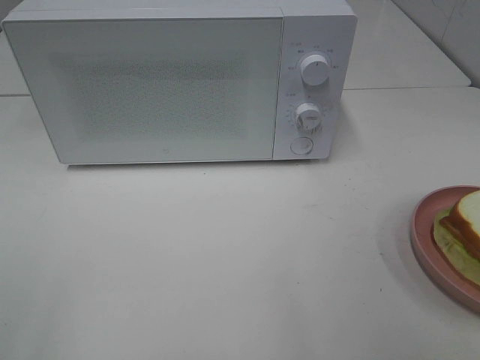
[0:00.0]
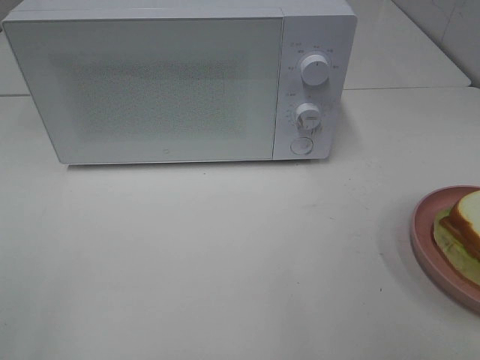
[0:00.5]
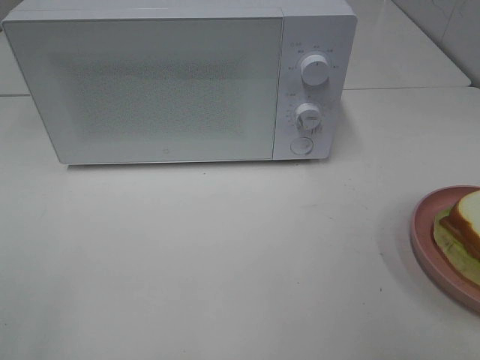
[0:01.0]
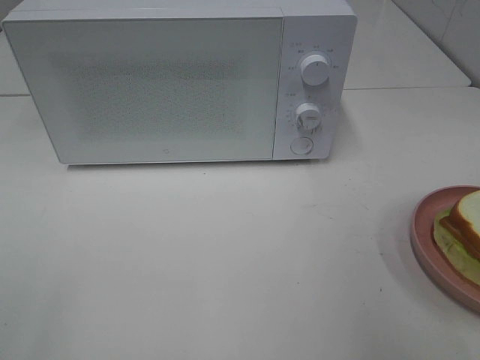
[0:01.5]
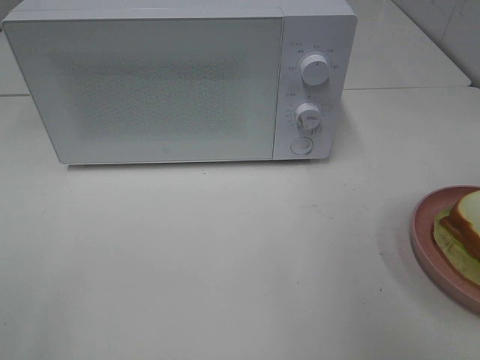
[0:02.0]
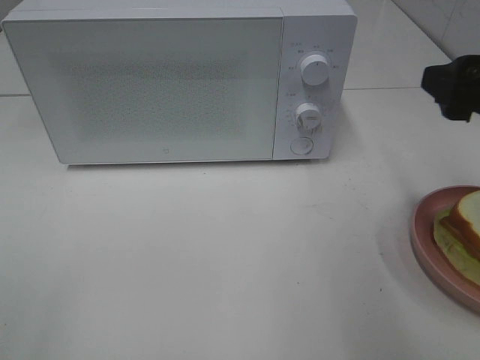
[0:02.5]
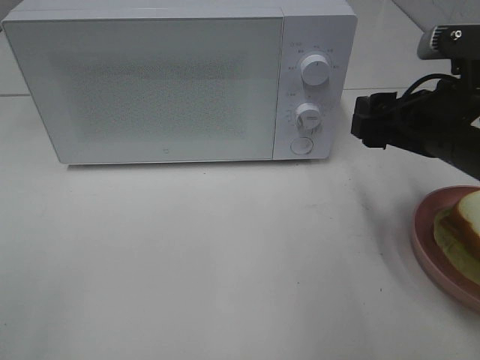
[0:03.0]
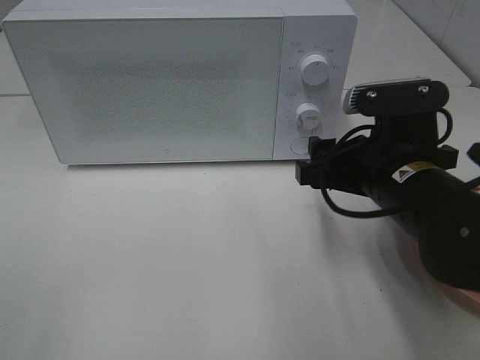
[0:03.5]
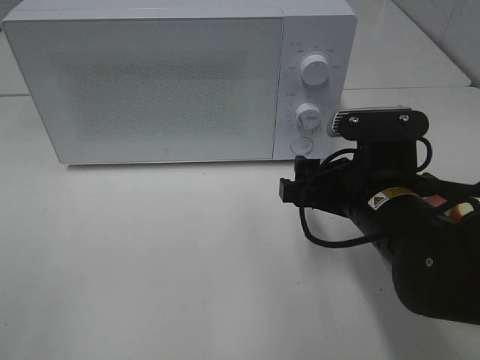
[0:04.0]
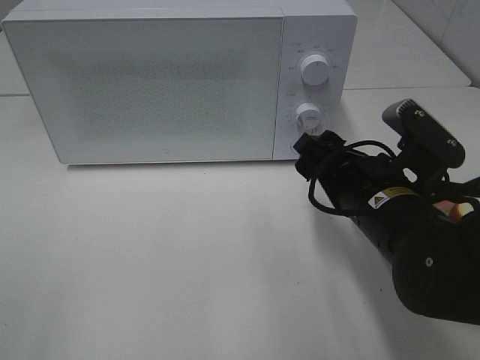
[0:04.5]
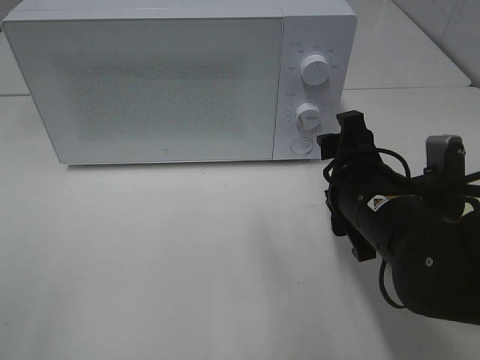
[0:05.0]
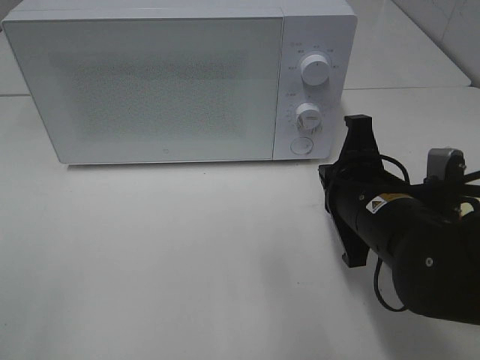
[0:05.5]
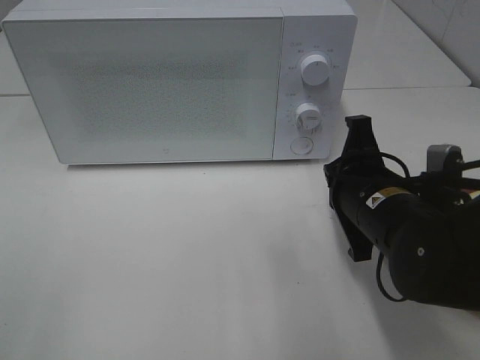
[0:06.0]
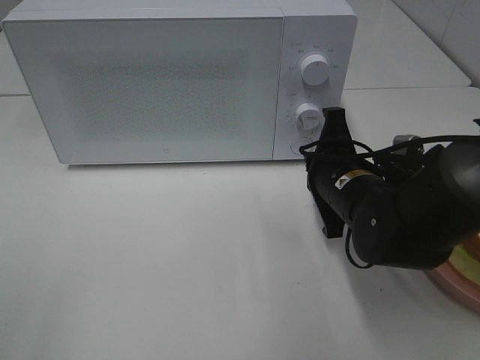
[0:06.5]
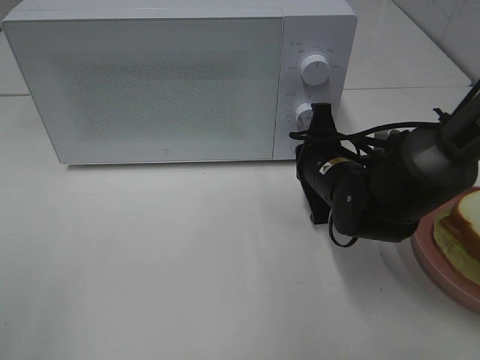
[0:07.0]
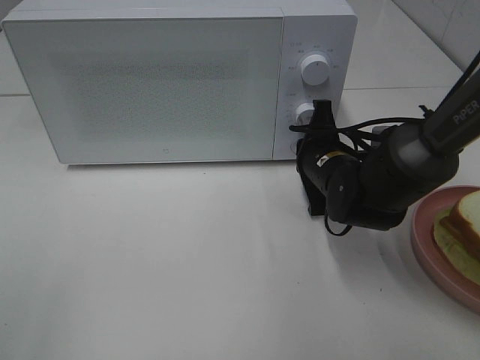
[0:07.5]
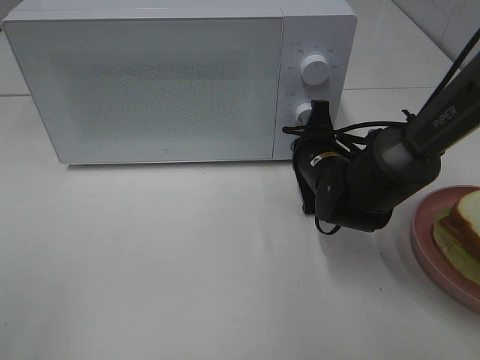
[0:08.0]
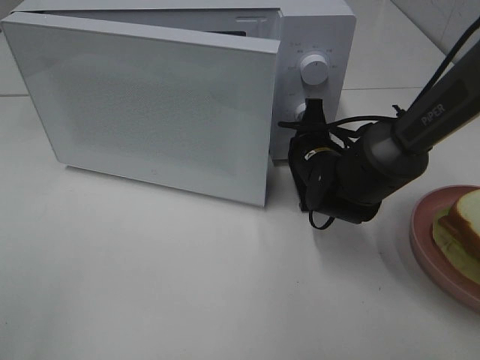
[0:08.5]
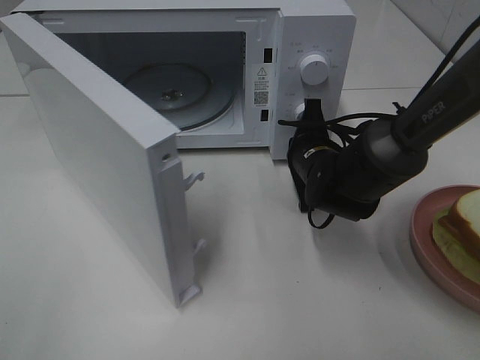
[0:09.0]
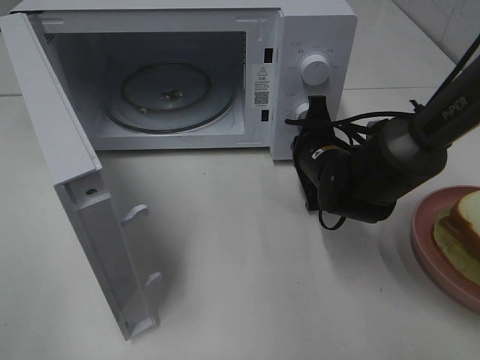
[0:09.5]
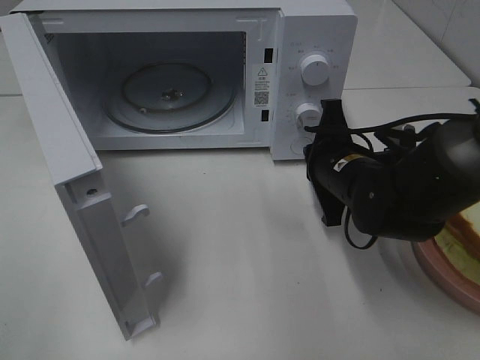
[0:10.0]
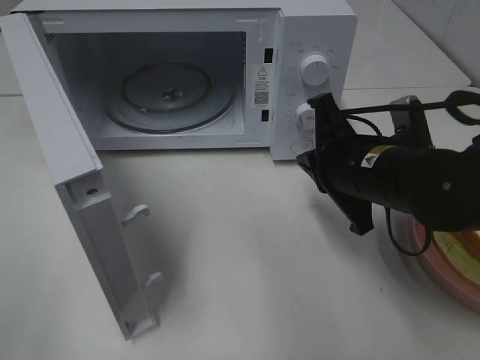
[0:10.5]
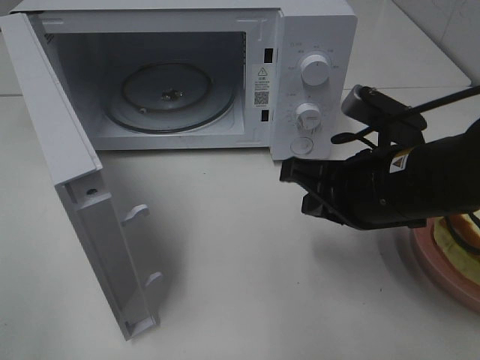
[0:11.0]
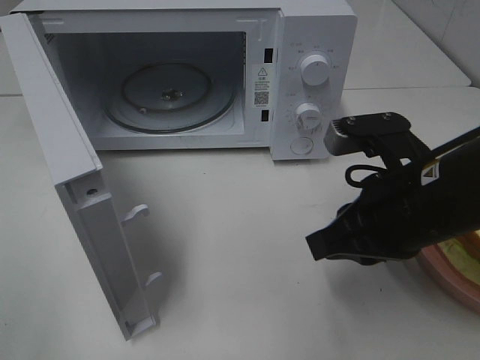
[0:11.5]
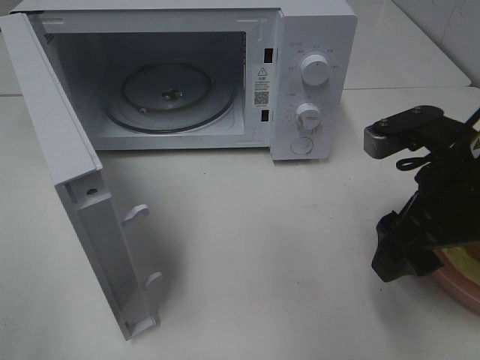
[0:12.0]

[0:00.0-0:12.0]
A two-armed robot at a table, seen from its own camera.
Task of the whole recording: Heat Sandwich.
Step, 0:00.0 to 0:09.5: Right hand: press the switch.
0:02.0 to 0:04.0: The right gripper shifts some 20 cm downward and to the left.
0:04.0 to 0:06.0: The right gripper closes up.
0:06.0 to 0:08.0: The right gripper is displaced forward and downward by approximately 10 cm.
0:08.0 to 0:10.0: The right gripper ends up about 5 cm from where it was.
0:10.0 to 0:12.0: The right gripper moves upward, backward and to the right, some 15 cm, and opens.

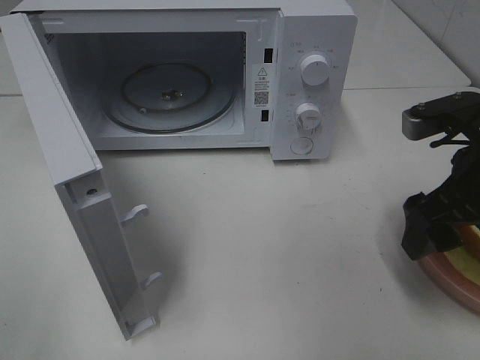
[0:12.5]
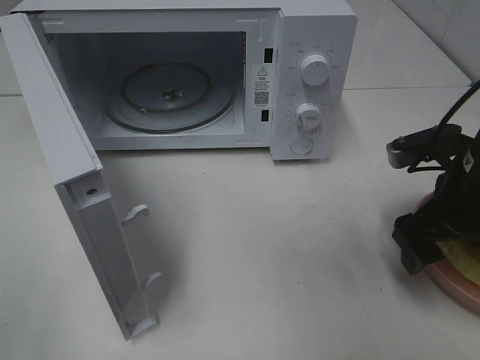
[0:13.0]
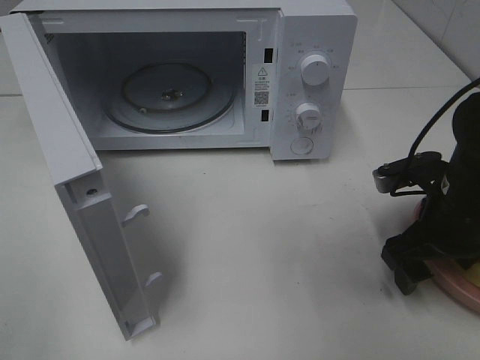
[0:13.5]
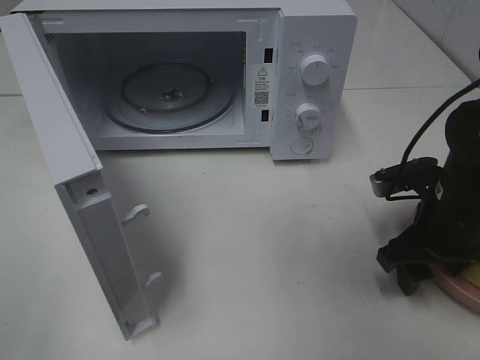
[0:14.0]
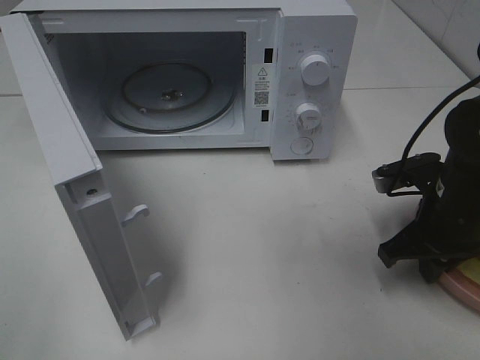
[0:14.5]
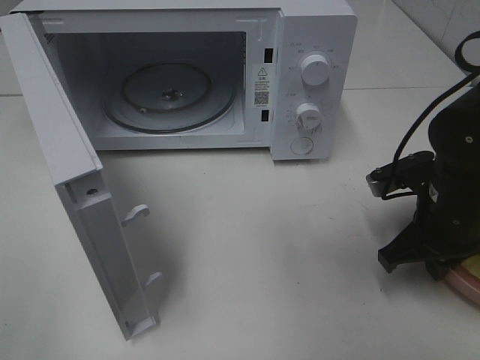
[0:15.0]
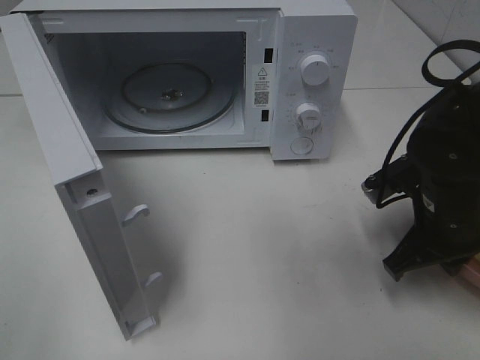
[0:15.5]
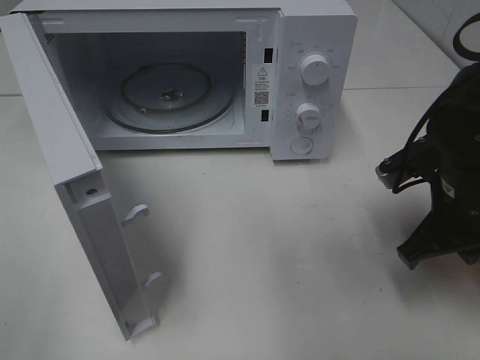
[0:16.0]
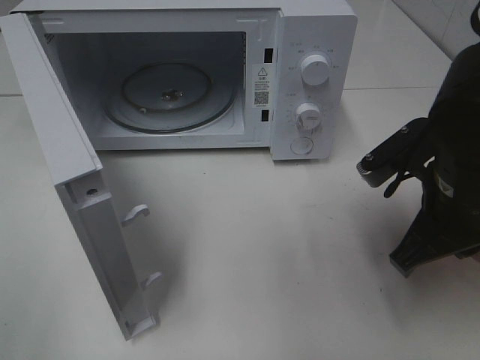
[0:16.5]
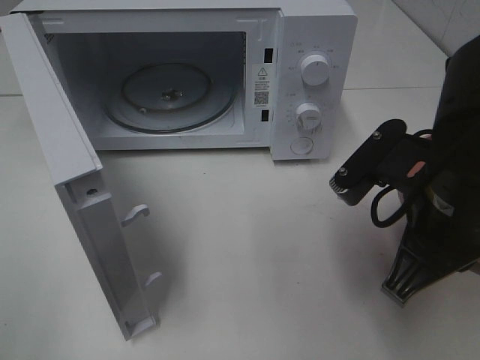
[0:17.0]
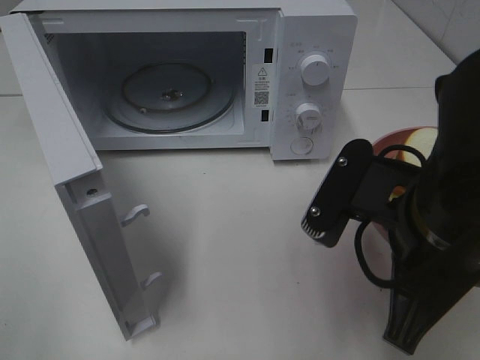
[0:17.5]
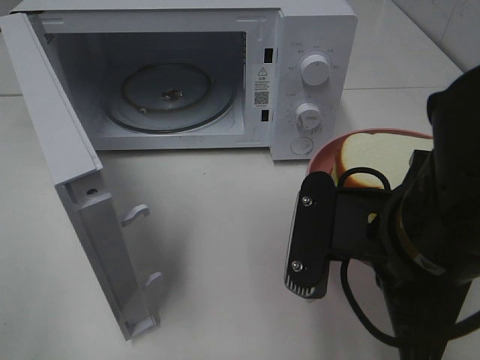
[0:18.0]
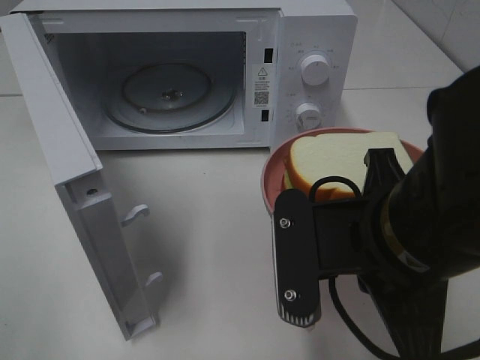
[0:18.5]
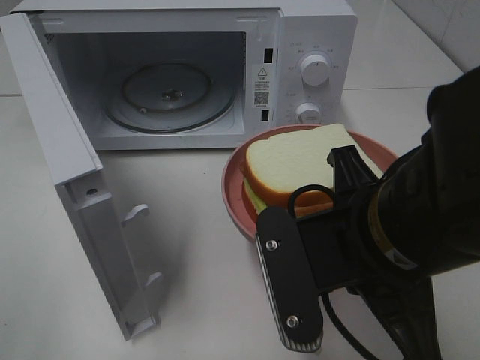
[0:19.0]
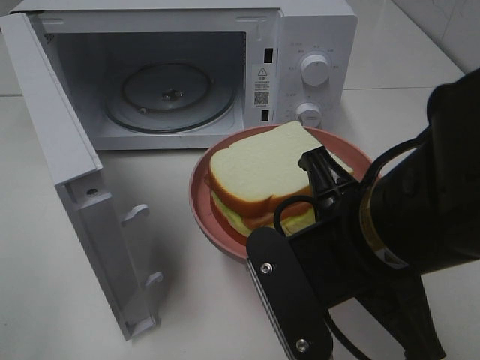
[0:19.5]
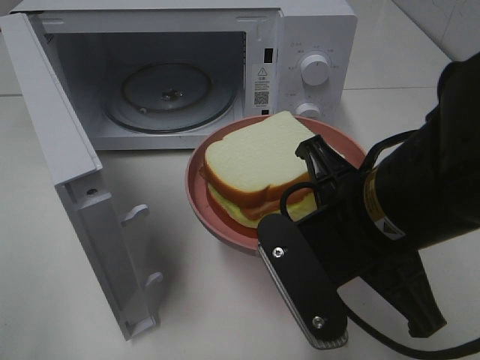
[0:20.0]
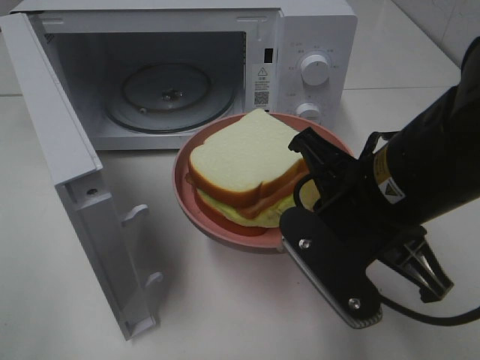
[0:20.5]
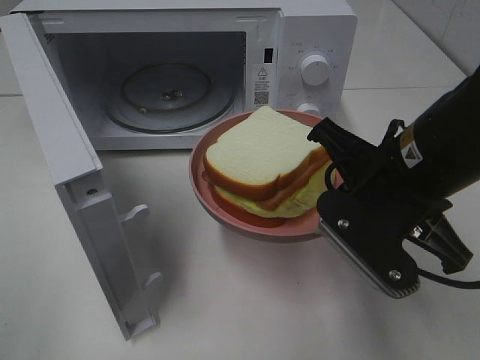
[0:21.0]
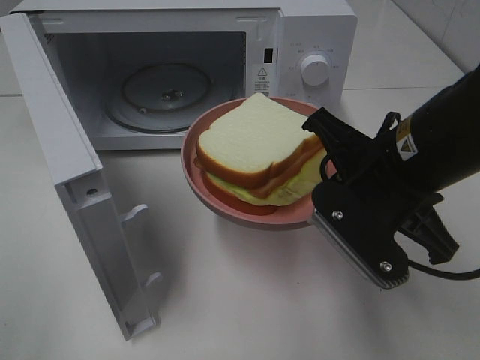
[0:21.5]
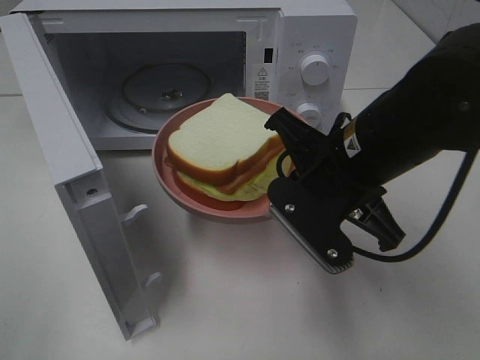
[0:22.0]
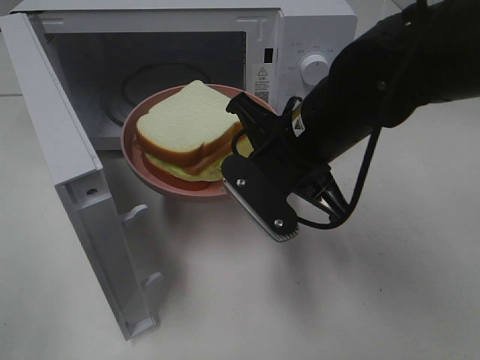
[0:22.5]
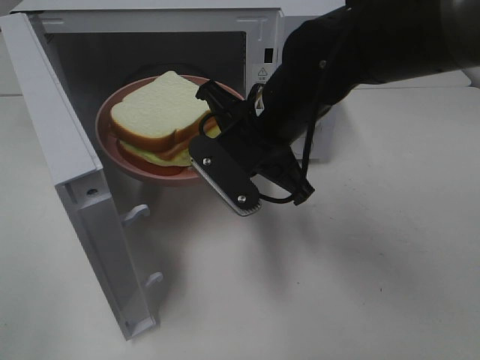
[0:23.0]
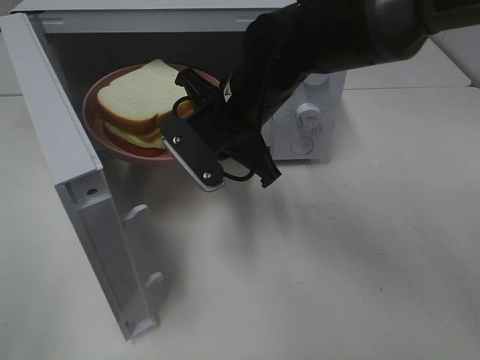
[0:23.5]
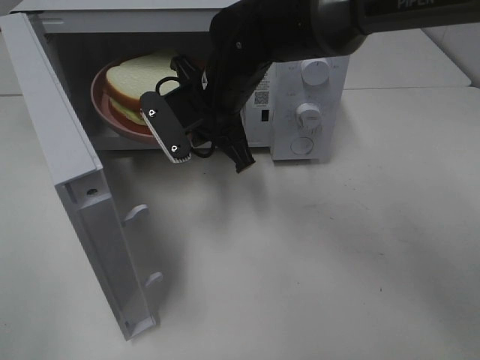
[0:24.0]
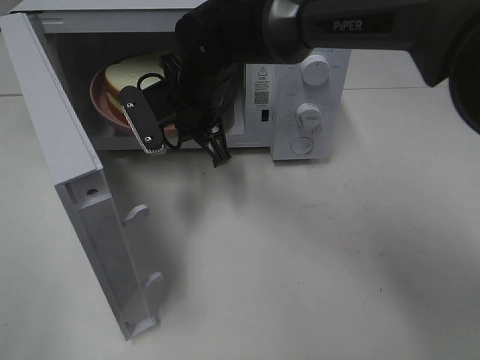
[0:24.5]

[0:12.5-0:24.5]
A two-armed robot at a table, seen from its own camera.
Task of the whole recording: Heat Sandwich.
Step, 0:12.5 to 0:14.5: Right hand: grab the plate with the sandwich.
0:12.5 to 0:14.5: The right gripper travels downward by roughly 10 cm, and closes up.
0:14.5 to 0:16.5: The right gripper travels upward by roughly 5 cm.
0:16.5 to 0:18.5: The right gripper heads to the left and backward, covering approximately 10 cm.
0:20.5 to 0:22.5: The right gripper heads forward, covering roughly 10 cm.
0:22.5 to 0:24.5: The right gripper moves forward and to the left, approximately 15 cm.

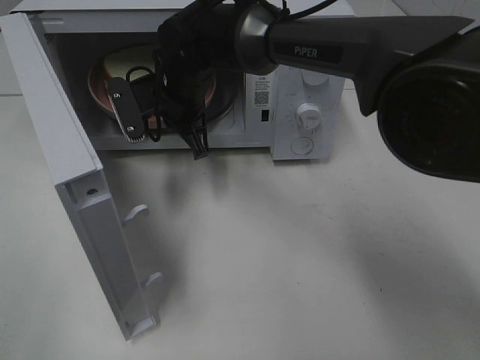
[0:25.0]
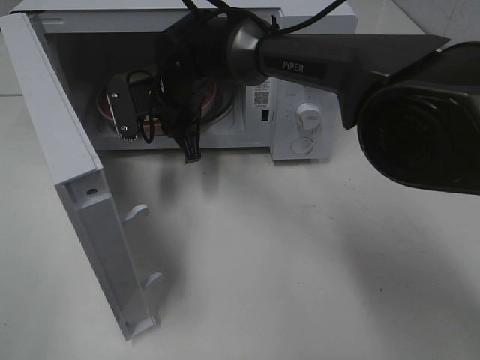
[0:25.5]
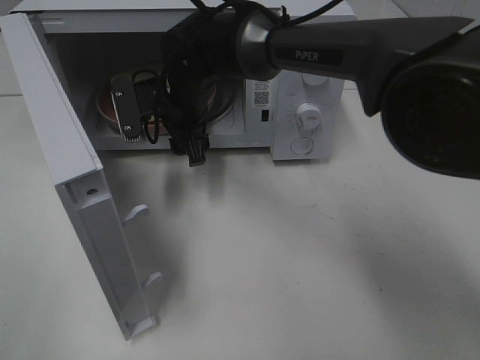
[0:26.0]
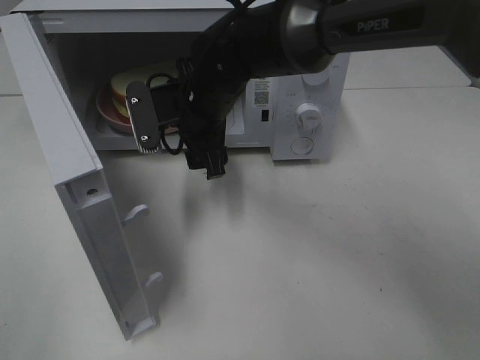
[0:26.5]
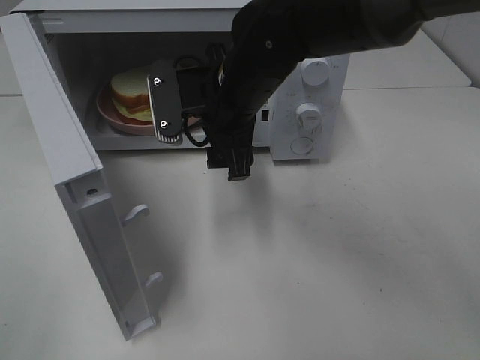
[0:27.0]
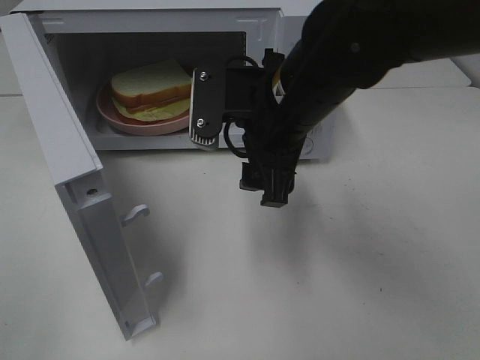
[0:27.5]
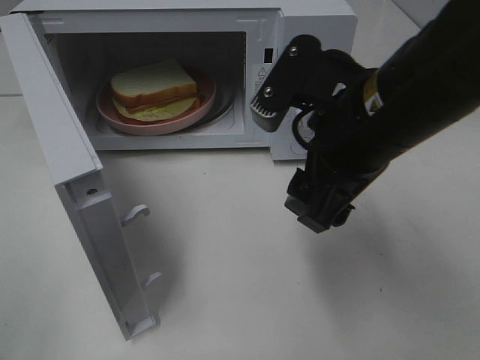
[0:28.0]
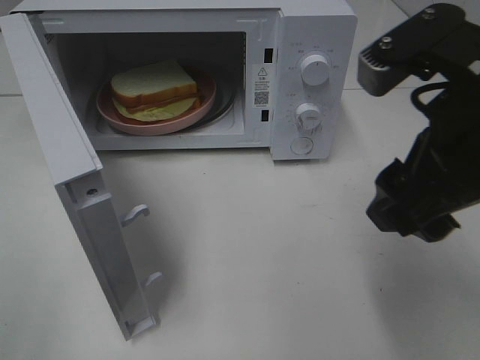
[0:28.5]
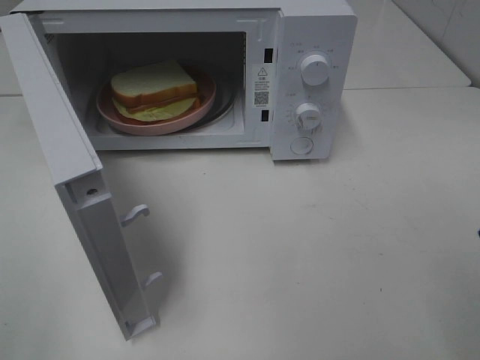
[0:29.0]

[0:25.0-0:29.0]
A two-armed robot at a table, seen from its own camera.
Task of the whole recording: Heat Sandwich.
Step, 0:25.0 to 0:27.0: Right hand: place the plate in the microwave.
0:25.0 to 0:27.0: The right gripper is displaced backward and to the right by approximately 10 cm, and opens its fingers.
0:27.0 to 0:29.0: The right gripper is displaced backward, to the right and upward by some 30 cm.
